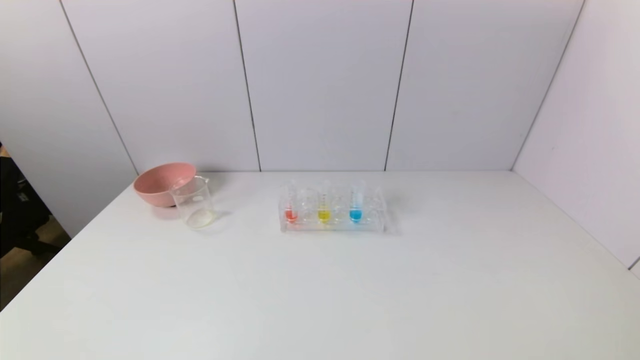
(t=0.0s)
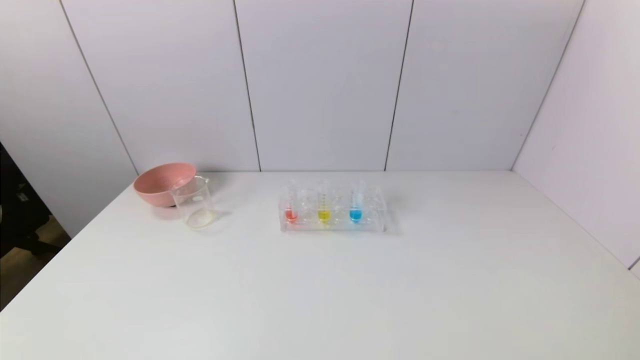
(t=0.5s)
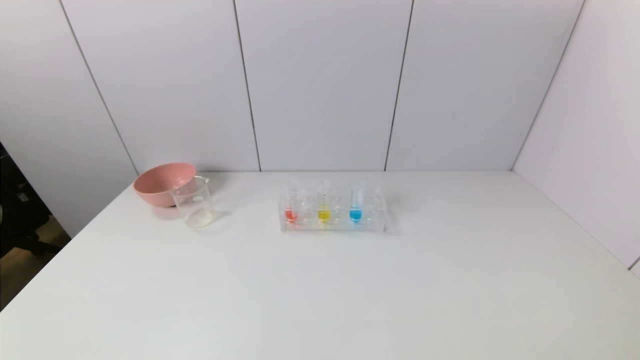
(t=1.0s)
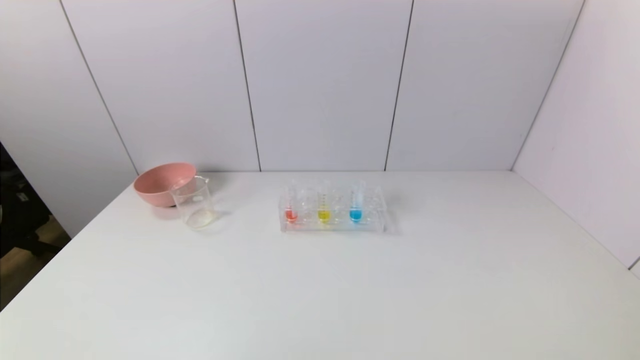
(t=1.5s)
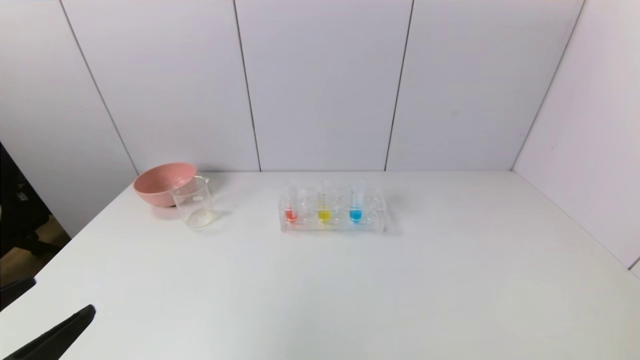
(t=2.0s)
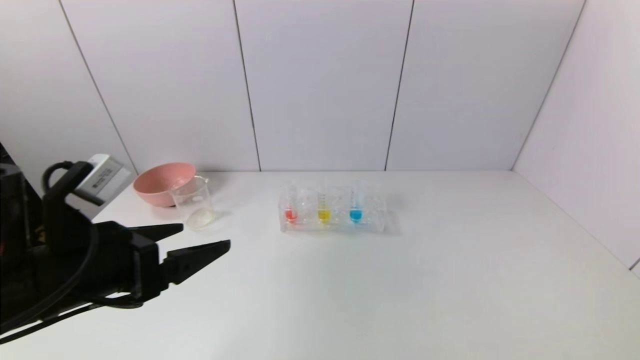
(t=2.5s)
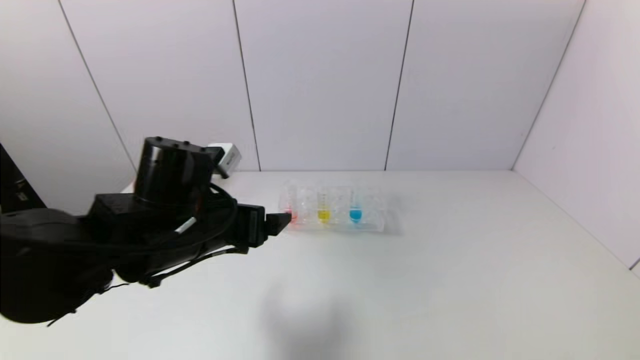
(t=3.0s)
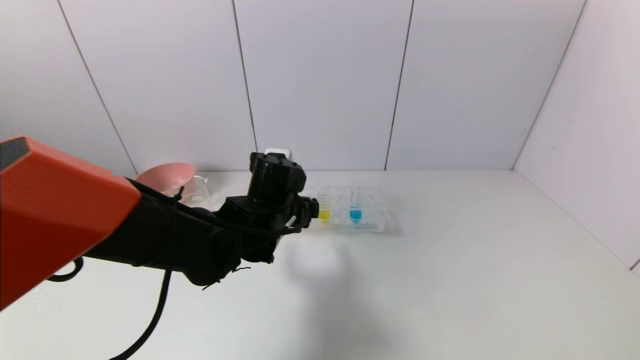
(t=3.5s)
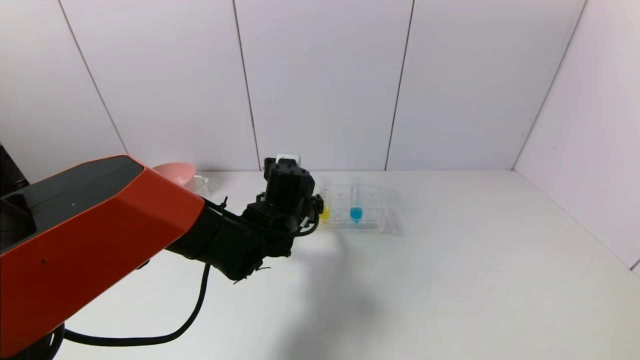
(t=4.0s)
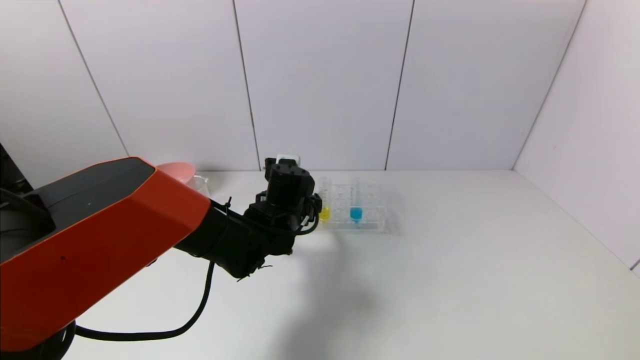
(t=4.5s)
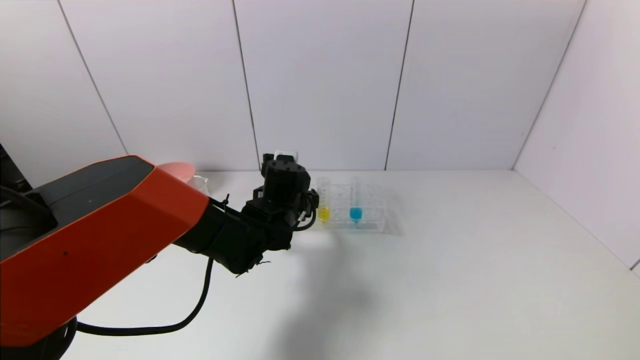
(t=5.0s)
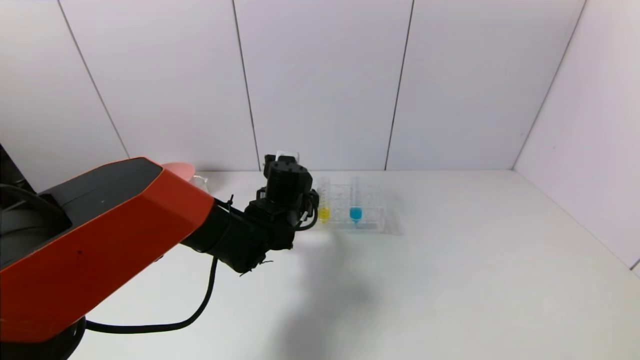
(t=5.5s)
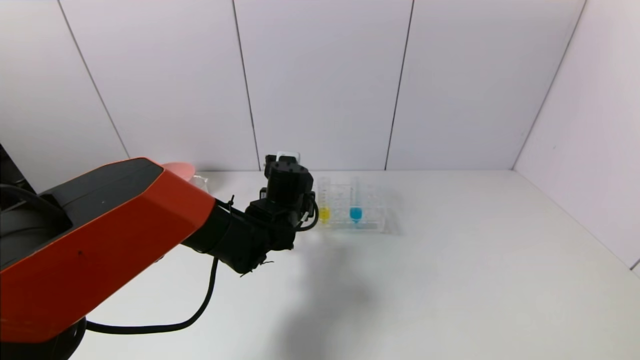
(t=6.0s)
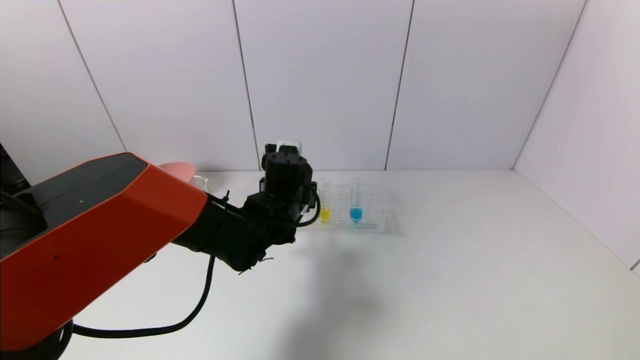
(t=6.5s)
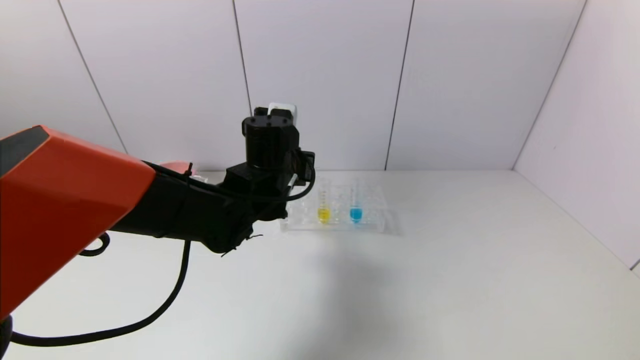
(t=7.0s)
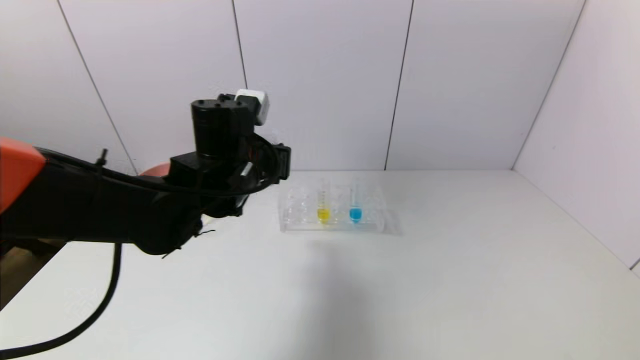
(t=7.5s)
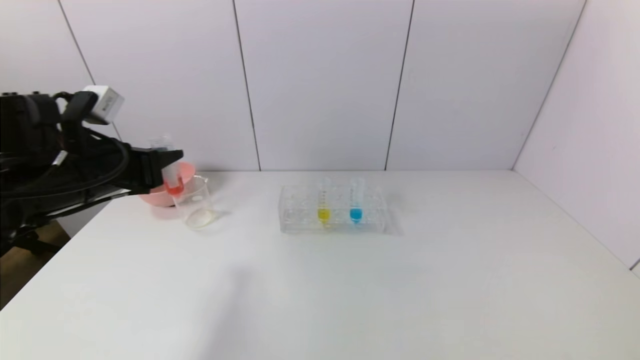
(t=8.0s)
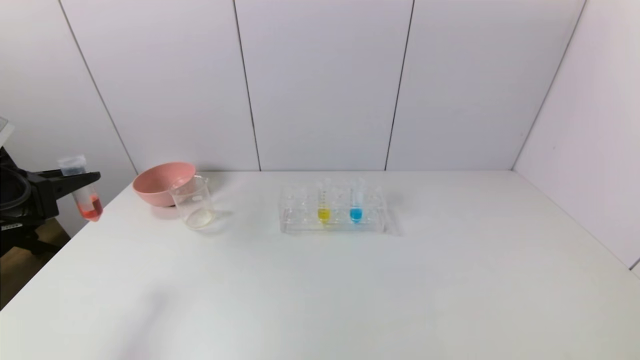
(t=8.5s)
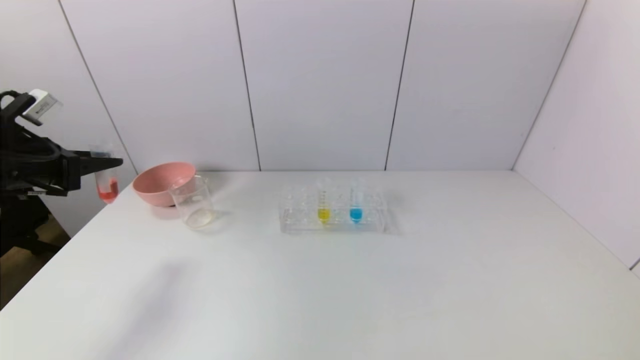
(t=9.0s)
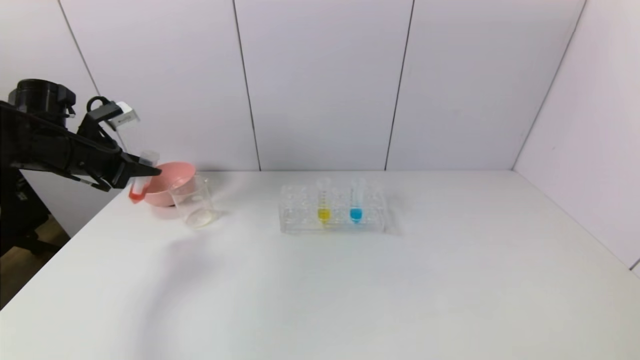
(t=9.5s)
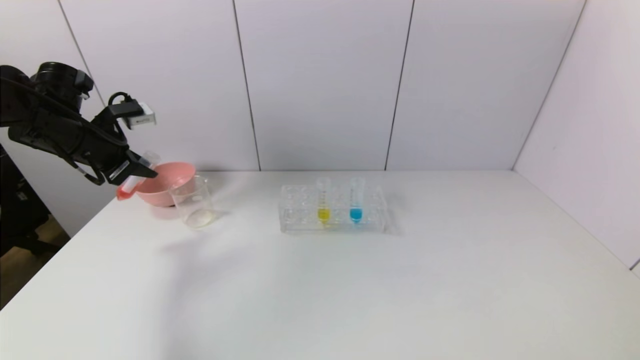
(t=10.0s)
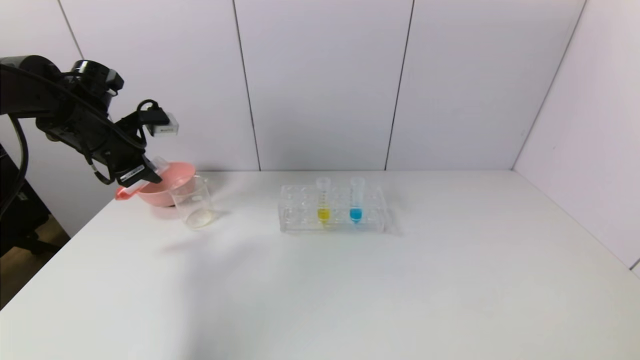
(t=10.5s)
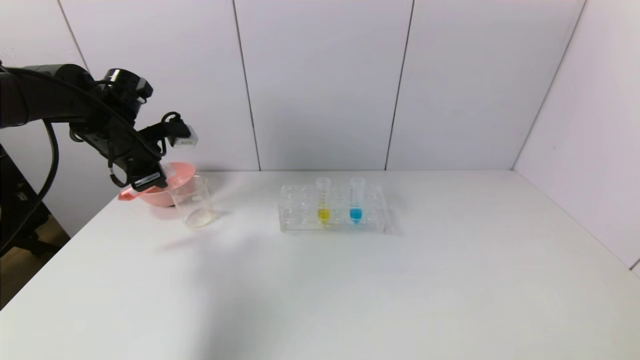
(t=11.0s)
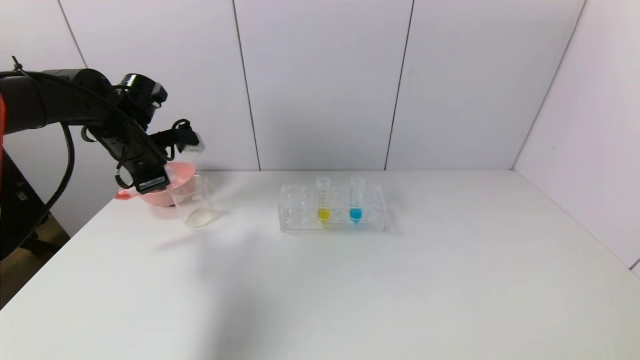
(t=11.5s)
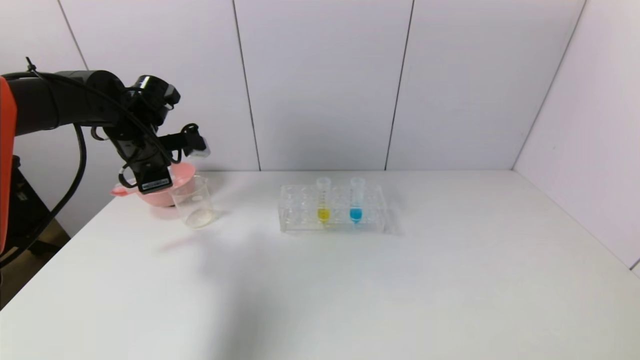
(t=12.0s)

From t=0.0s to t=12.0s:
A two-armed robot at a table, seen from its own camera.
Task of the whole recording: pick up the test tube with yellow pigment and the test tube with red pigment by grippers and pour them into the beaker.
Step, from t=0.0s to t=6.0s: Grasp the red reagent with the left gripper.
From t=0.0s to t=2.0s: The left gripper is displaced upward and forward by approximately 15 cm.
From t=2.0s to t=4.0s: The left gripper heads forward and to the right, covering some 40 cm.
From t=4.0s to t=6.0s: The left gripper closes its fingers.
From t=6.0s to t=8.0s: The left gripper moves to the left, upward and backward, some 30 cm.
From t=8.0s to t=10.0s: The left gripper is displaced forward and to the left by about 15 cm.
From t=10.0s to t=12.0s: The left gripper shifts approximately 10 cm to the right.

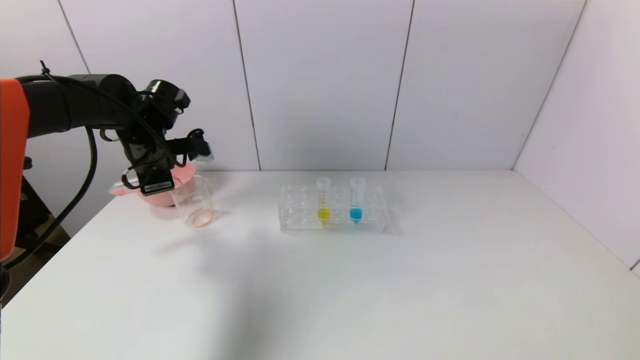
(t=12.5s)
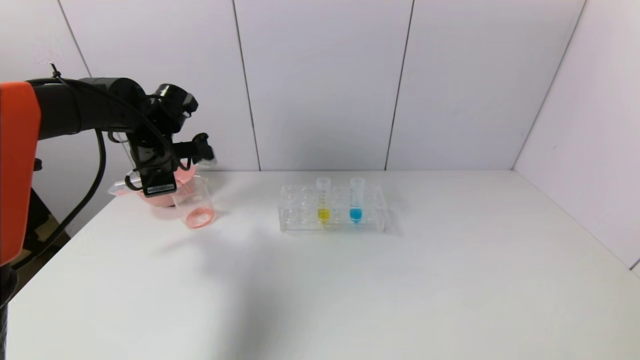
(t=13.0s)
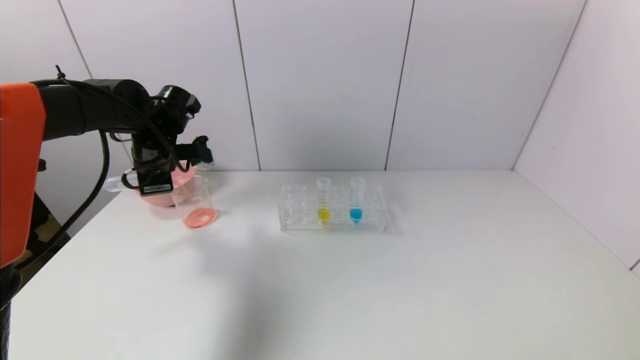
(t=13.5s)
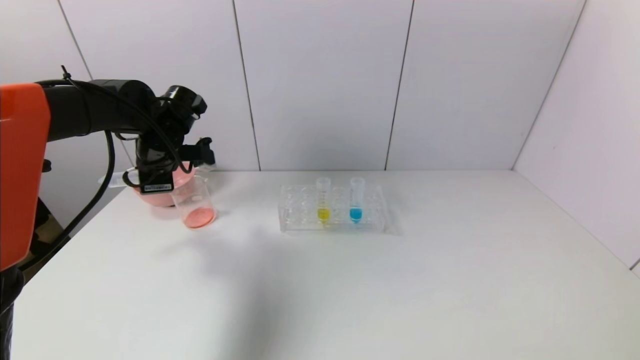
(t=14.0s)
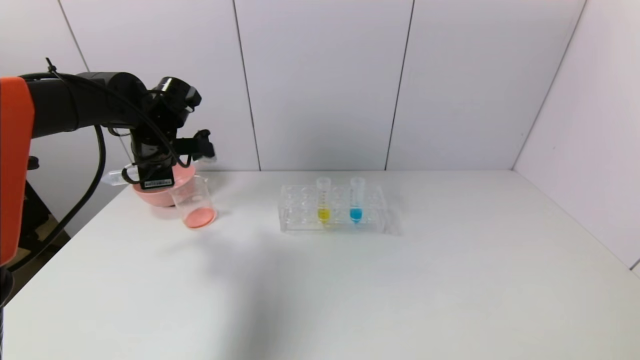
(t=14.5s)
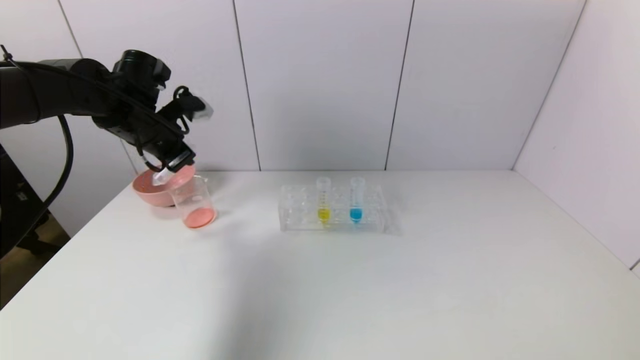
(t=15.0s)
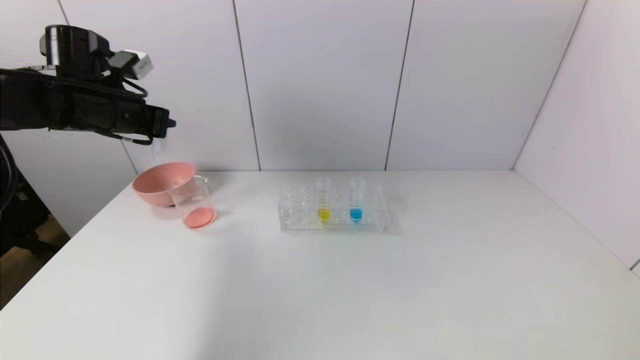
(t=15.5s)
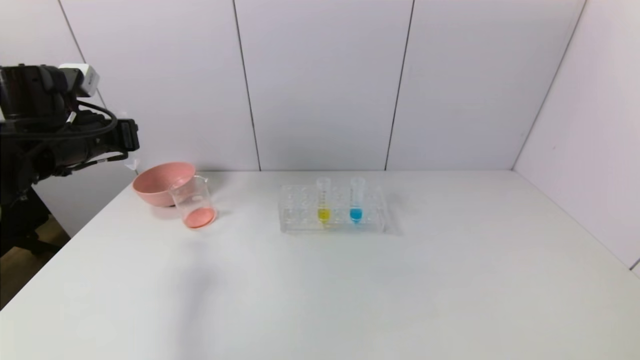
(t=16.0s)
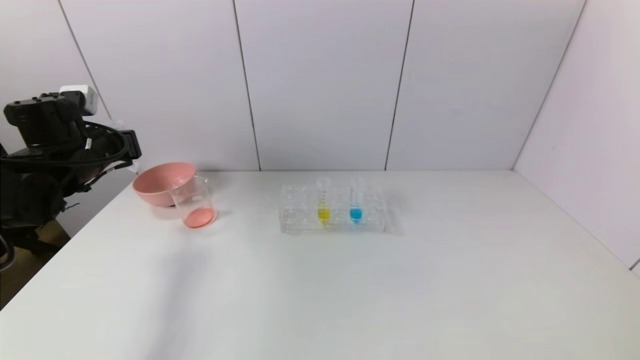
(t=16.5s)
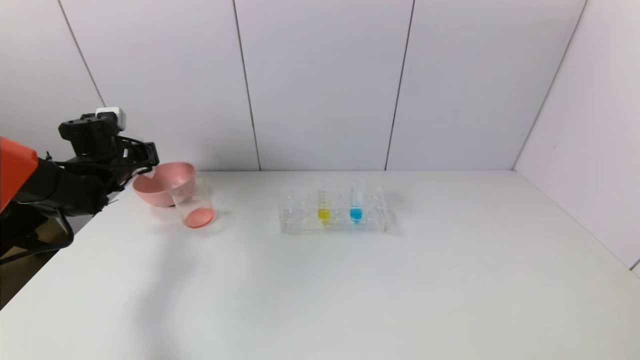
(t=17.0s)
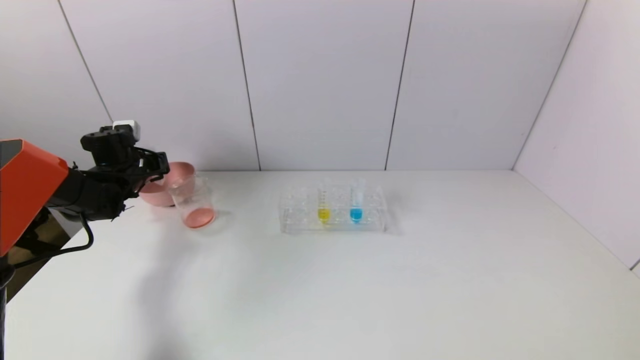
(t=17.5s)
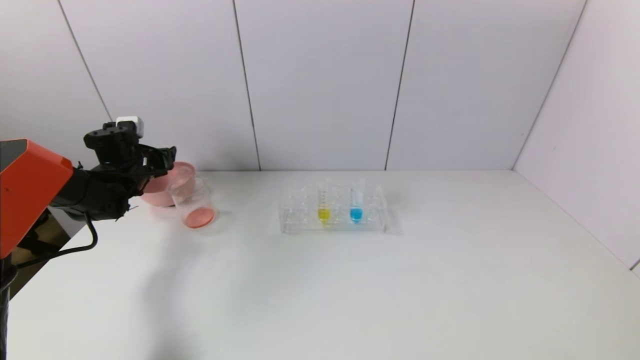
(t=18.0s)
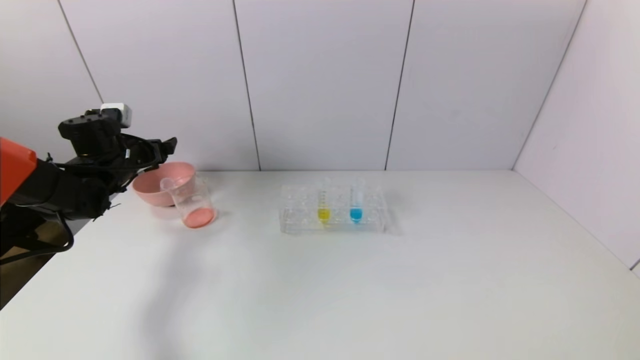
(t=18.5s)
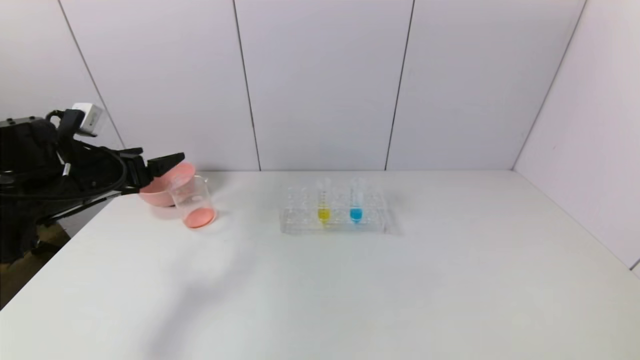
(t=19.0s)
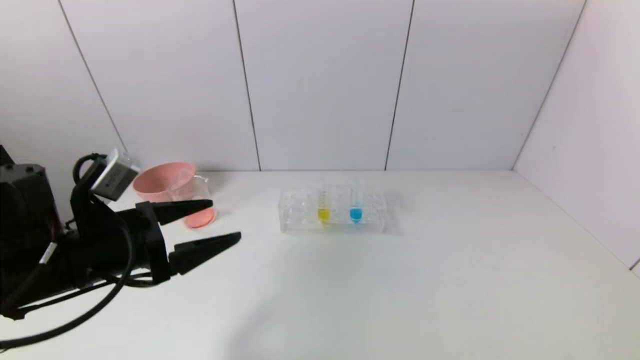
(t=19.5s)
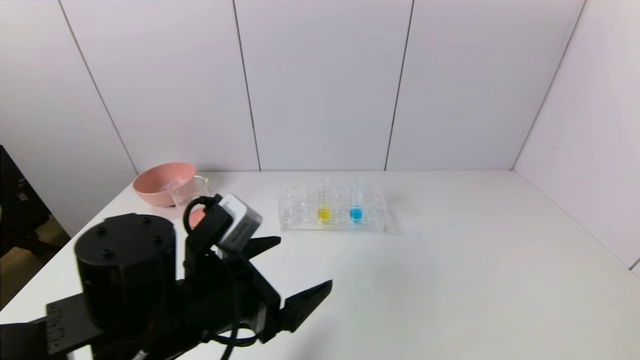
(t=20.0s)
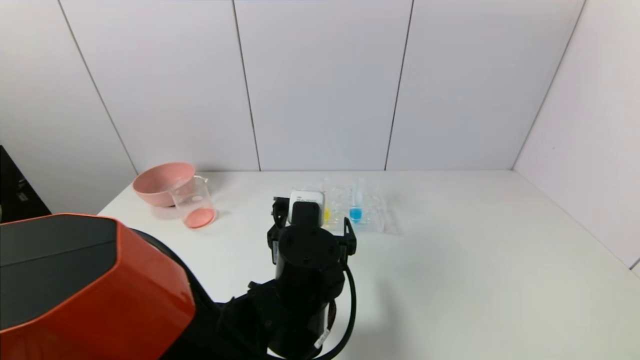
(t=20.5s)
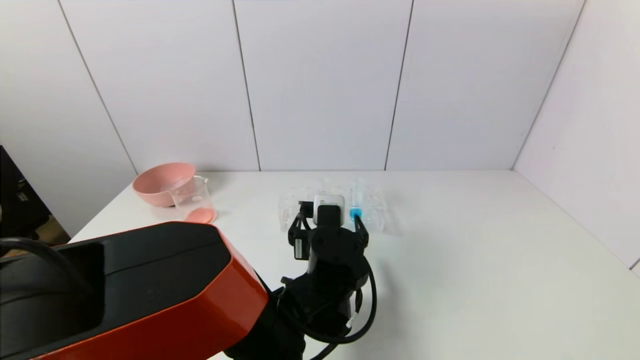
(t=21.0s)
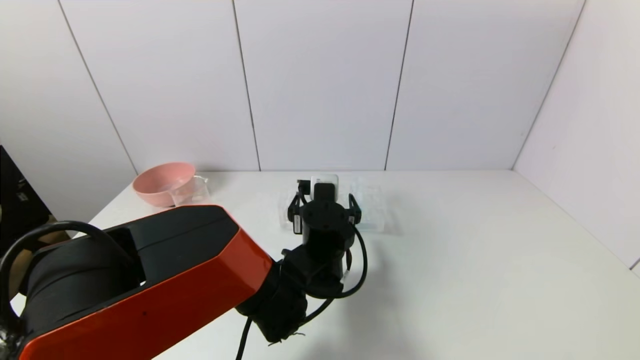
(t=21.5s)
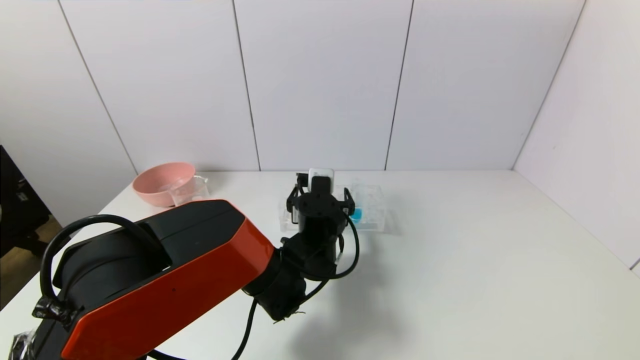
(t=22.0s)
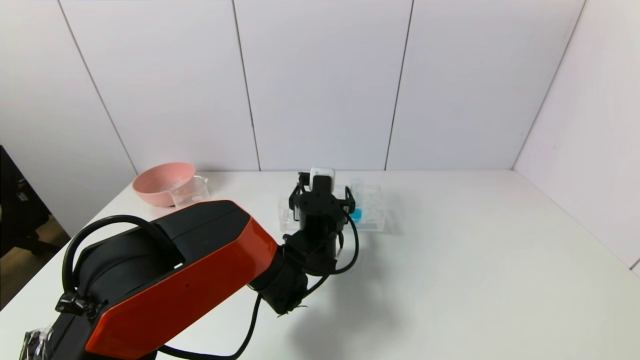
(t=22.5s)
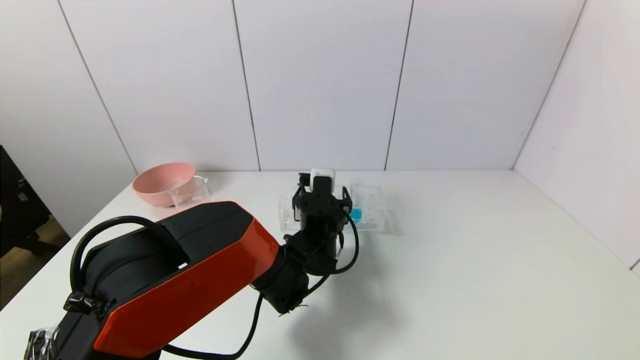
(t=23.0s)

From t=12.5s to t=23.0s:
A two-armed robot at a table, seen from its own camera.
Task of the whole recording: pick up the test tube with yellow pigment and the test tube with red pigment by grippers and pour them into the beaker.
Step, from t=14.5s to t=18.0s: Place the test tube into the pink bowl with the left gripper.
From t=12.5s to t=14.5s: The grippers stay close to where they were, moving slightly.
From t=14.5s to t=16.5s: The left gripper moves to the left, approximately 10 cm.
From t=16.5s to t=19.0s: The left gripper reaches roughly 10 cm forward, then returns, and opens.
From t=19.0s to t=21.0s: The left gripper heads to the right, covering approximately 35 cm.
From t=21.0s to t=23.0s: The left gripper heads forward, covering roughly 10 cm.
